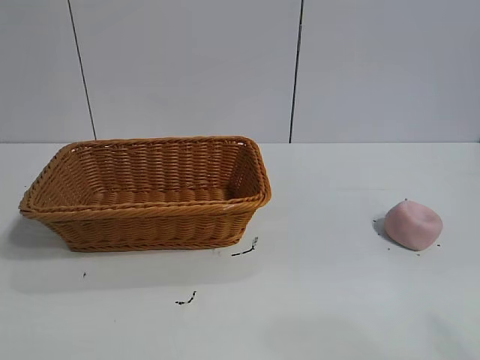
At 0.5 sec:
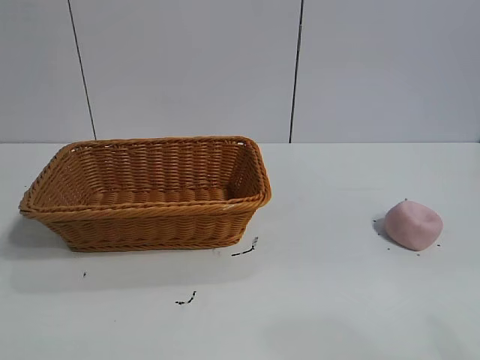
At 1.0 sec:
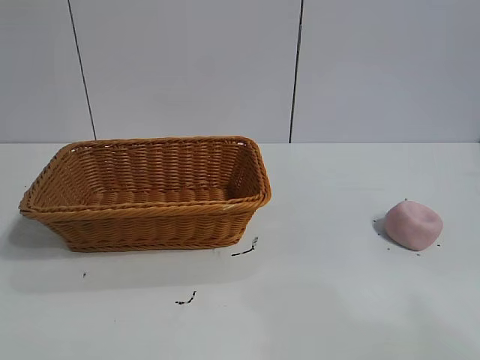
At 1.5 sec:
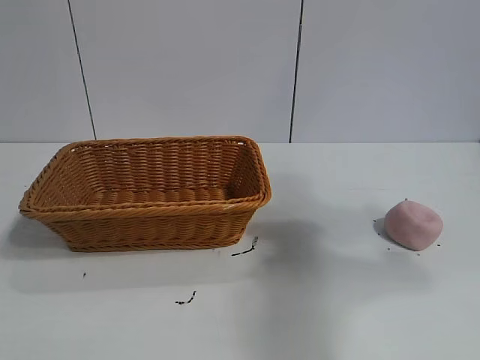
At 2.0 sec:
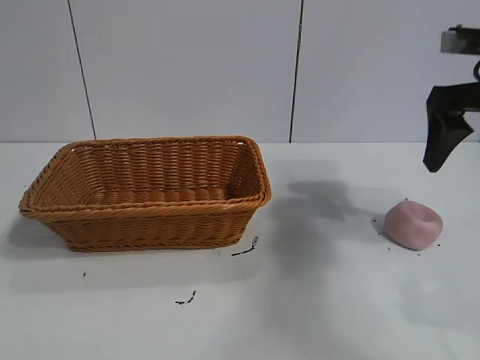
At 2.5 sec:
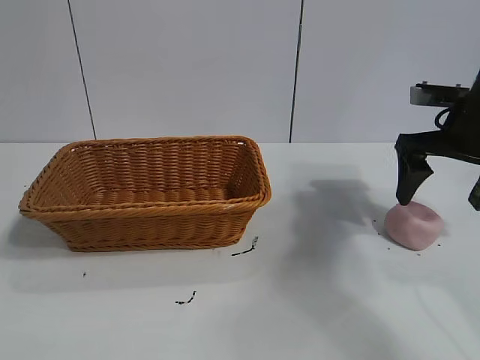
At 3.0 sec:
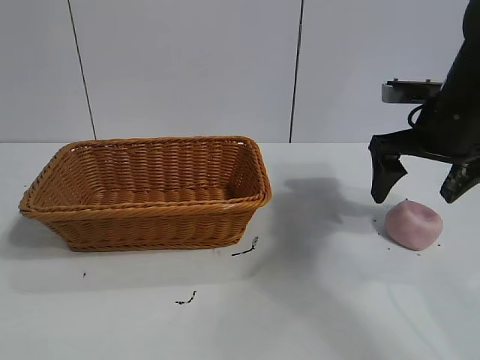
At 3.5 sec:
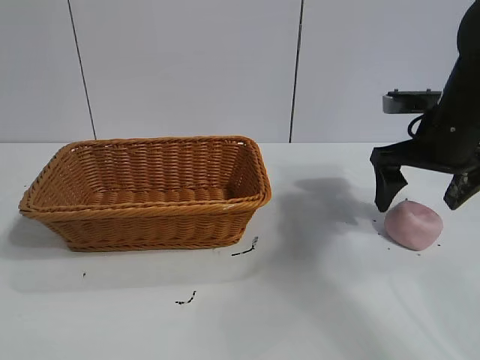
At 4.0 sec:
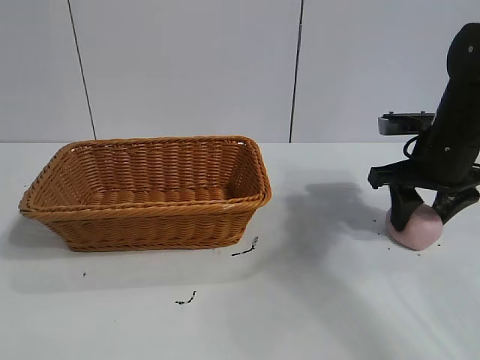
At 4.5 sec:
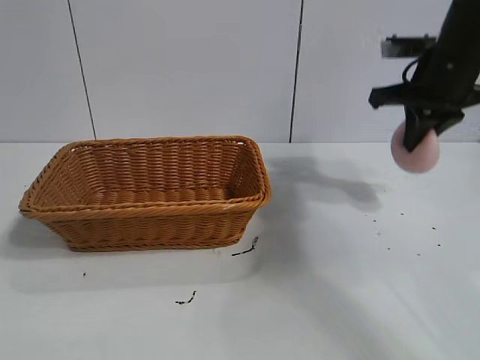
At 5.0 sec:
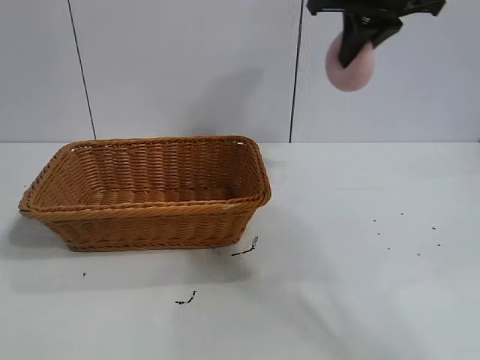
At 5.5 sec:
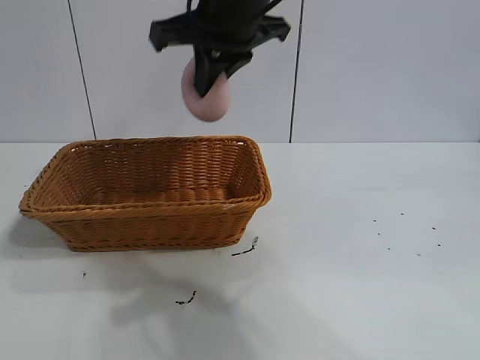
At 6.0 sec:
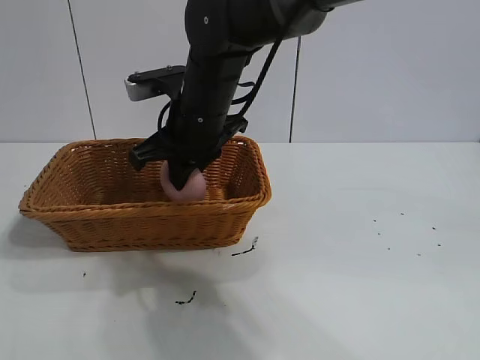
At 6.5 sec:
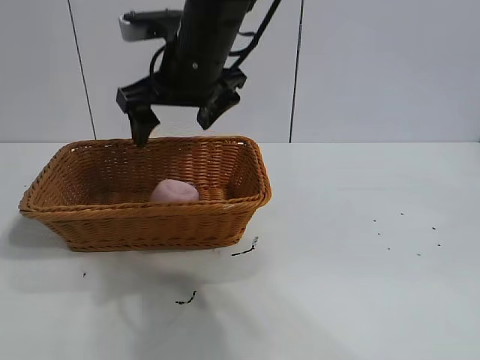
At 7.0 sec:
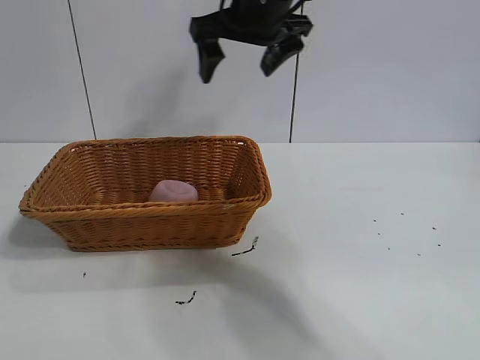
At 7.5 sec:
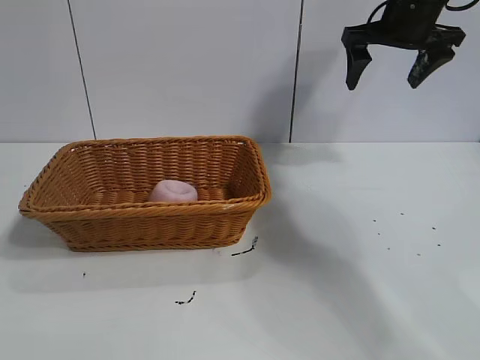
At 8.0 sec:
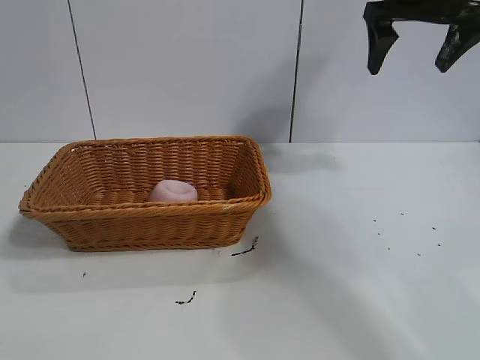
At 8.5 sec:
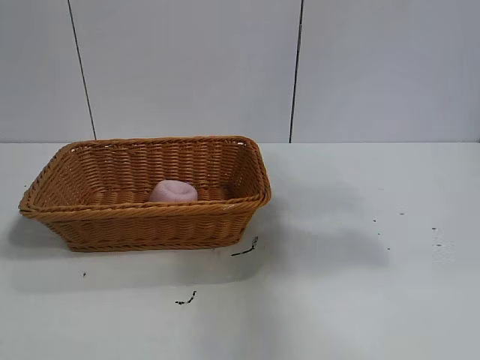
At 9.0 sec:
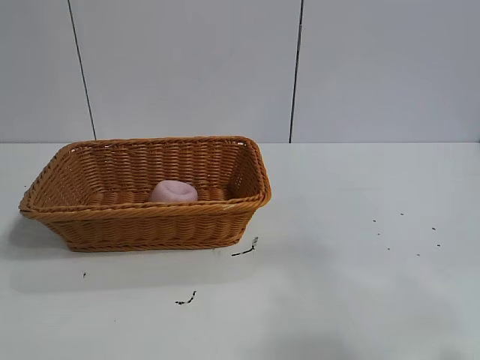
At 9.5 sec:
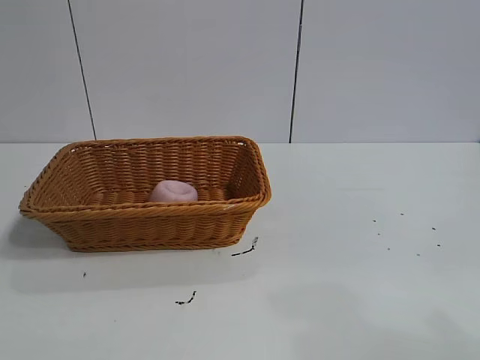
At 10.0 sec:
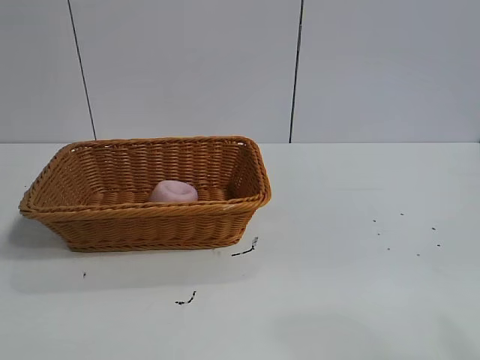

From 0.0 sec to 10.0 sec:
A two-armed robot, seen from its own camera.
Task of the whole recording: pick up the peach and put it into the basket.
Step, from 1.0 sec to 4.0 sec: Grasp the peach with right gripper.
Step, from 4.5 sec to 6.0 sec: Place the peach in the basket with right gripper.

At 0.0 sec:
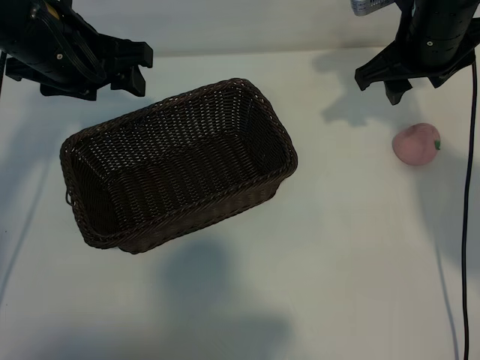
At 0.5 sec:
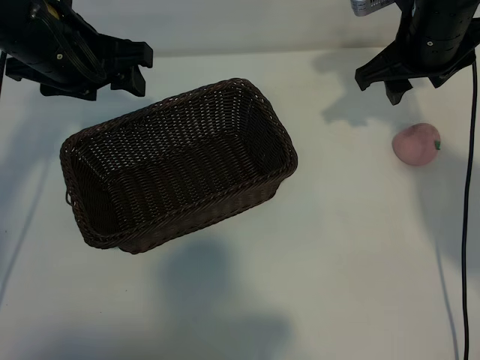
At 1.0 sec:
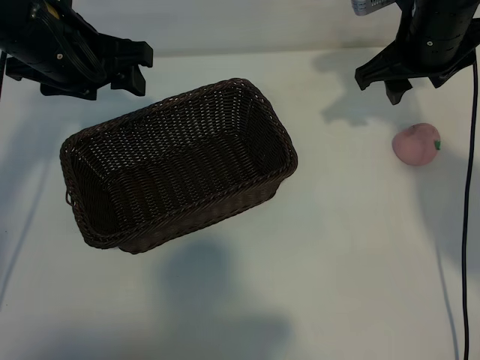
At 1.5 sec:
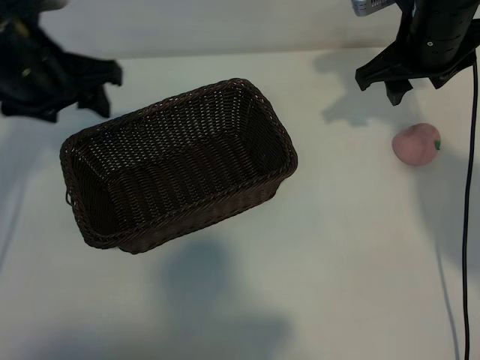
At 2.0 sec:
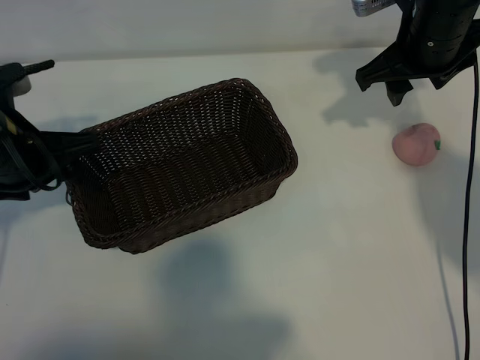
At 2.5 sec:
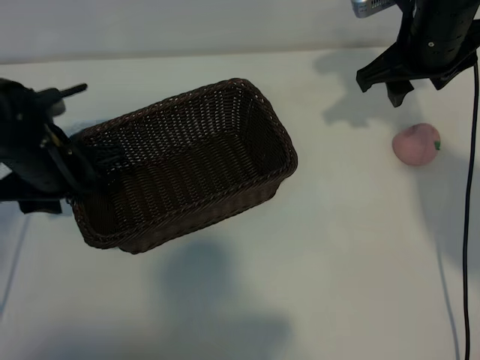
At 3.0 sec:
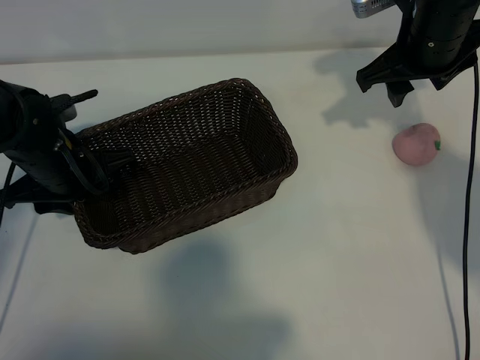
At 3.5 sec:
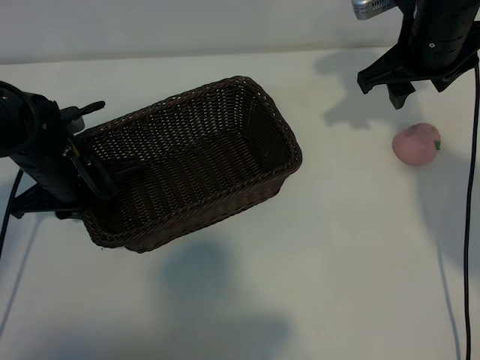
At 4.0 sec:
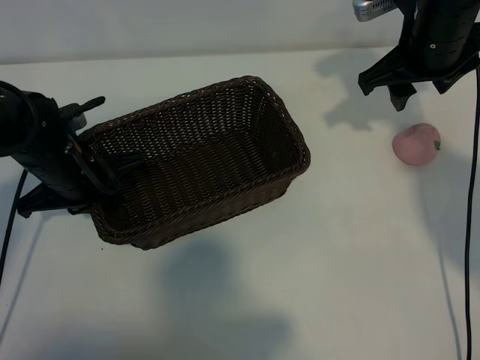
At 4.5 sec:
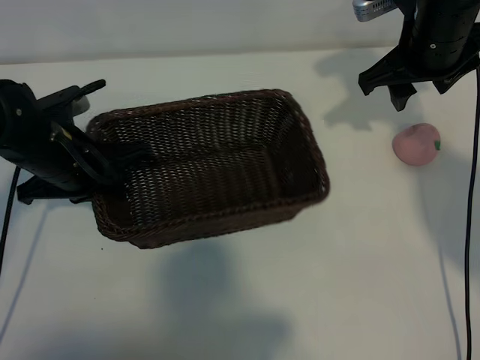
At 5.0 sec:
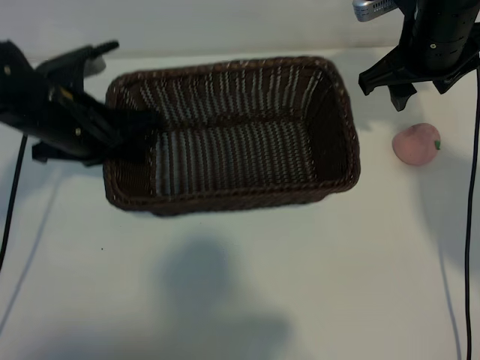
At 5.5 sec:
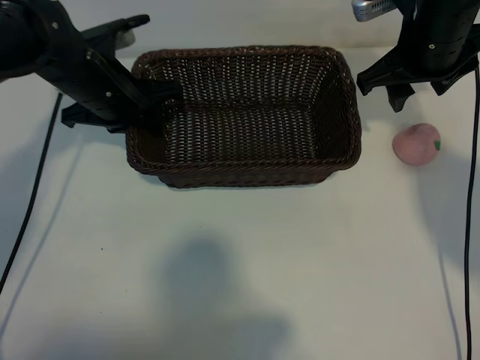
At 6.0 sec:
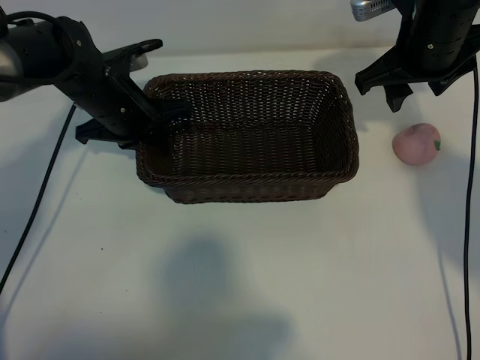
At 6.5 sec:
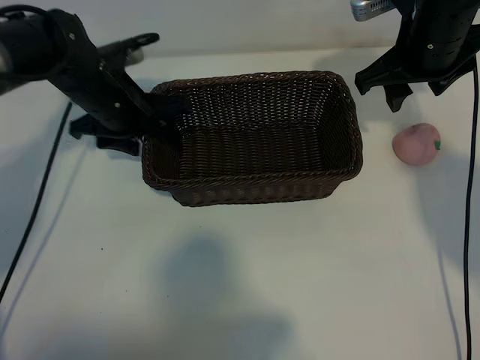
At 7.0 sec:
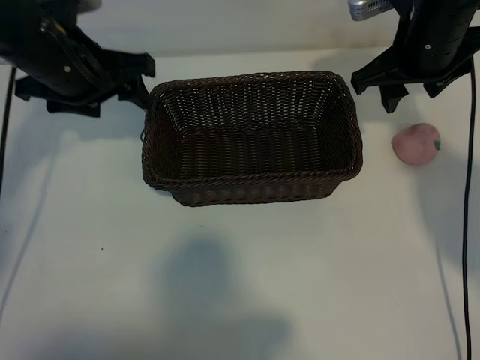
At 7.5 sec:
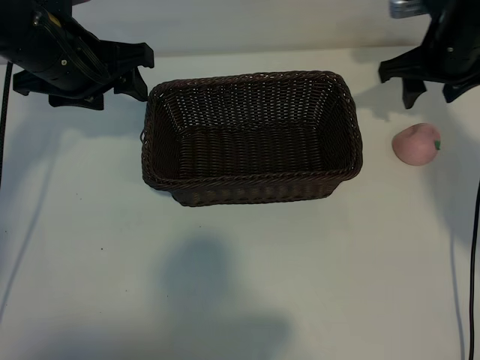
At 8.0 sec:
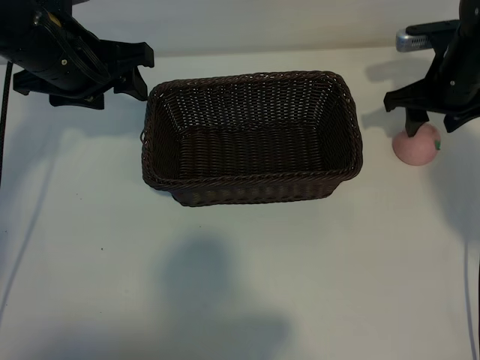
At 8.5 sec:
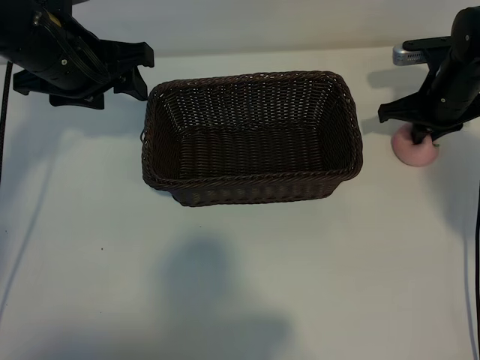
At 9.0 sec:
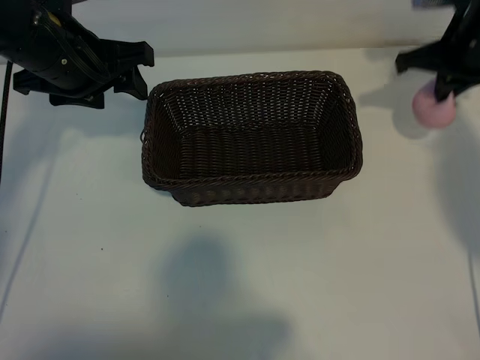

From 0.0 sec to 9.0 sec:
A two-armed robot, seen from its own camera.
Task of the whole recording: pick up the peach and put it into the basket.
Step, from 1.5 sec to 3.5 sec: Grasp the basket with left gripper.
Step, from 4.0 sec to 6.5 sec: Place the basket in the center of view with left gripper.
Step, from 7.0 sec to 8.5 sec: Grasp the peach with right gripper.
